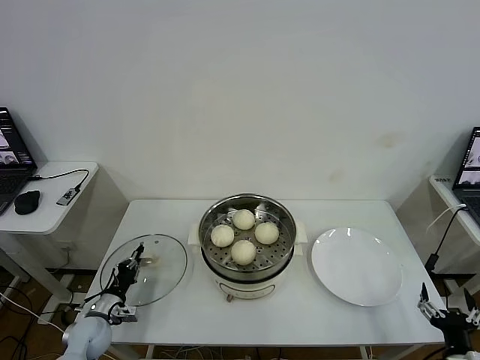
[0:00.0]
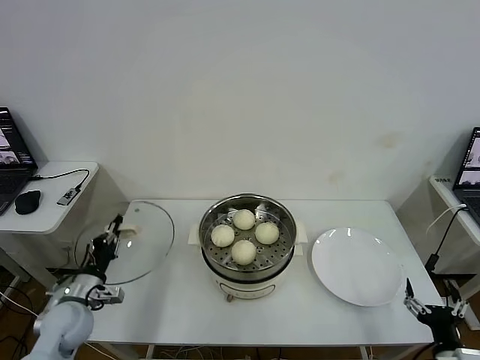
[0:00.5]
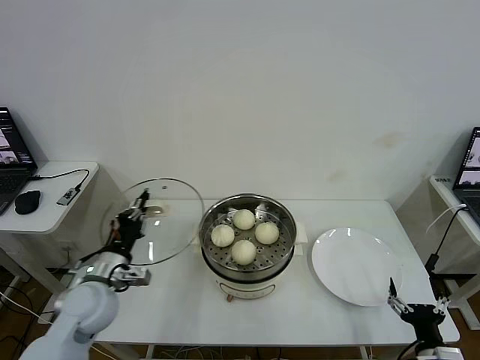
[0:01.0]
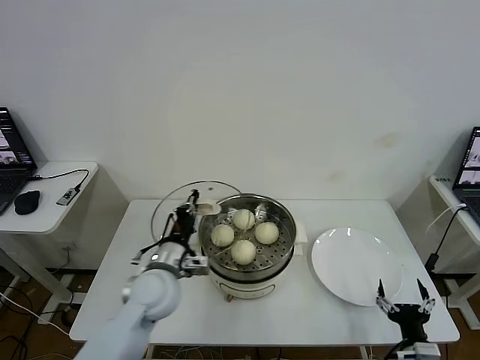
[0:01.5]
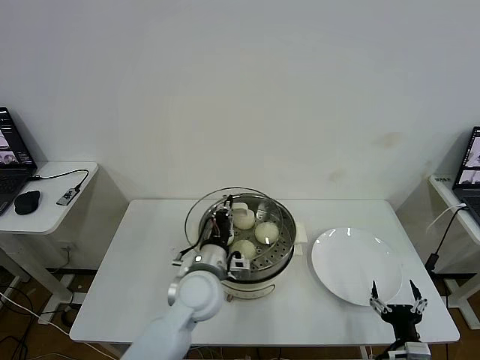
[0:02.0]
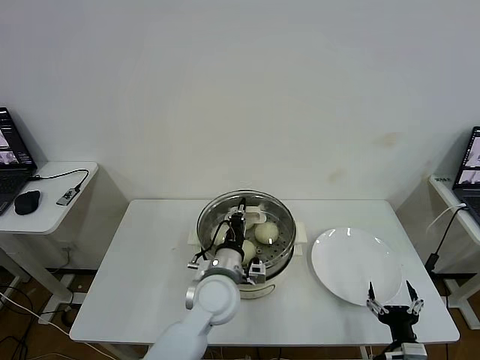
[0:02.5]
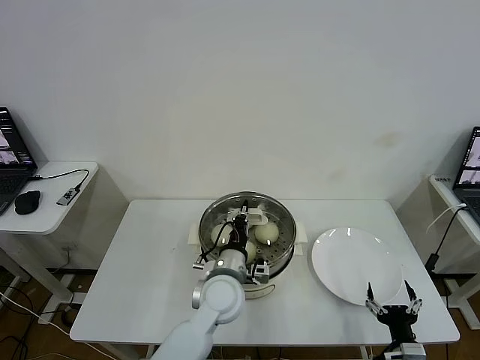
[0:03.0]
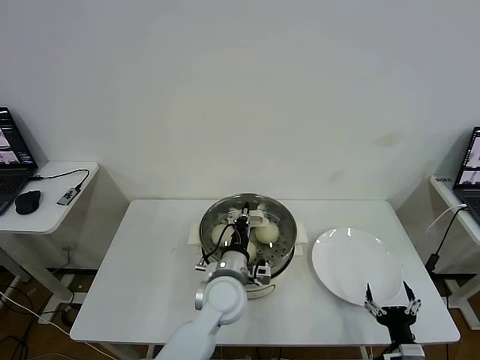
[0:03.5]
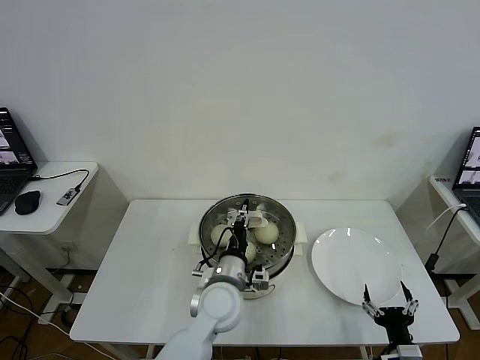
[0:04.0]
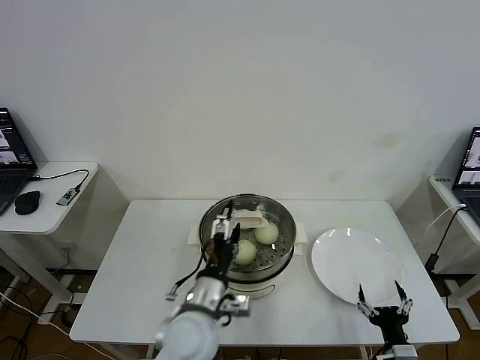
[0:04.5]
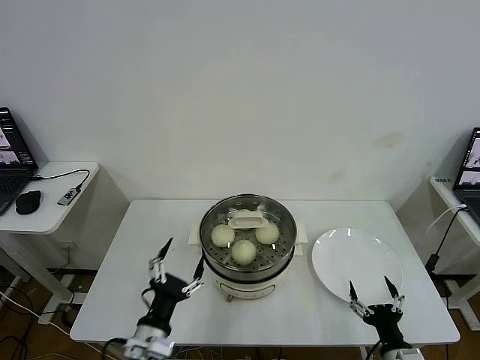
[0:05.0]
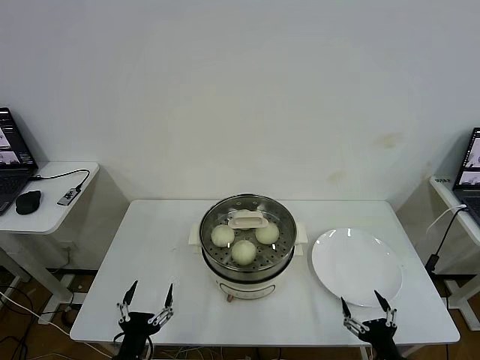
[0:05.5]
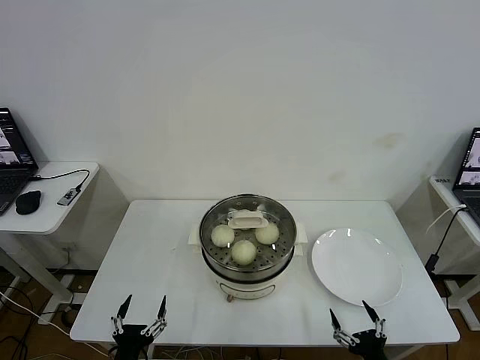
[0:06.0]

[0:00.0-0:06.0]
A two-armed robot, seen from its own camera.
Task of the whole recording: take steamed baozi put them in steamer then cover it.
Step, 0:00.5 to 0:04.0: Place the pot lid on the steamer with left gripper.
0:00.0 to 0:02.0: The left gripper heads to the right and upward, covering about 35 cm; the right gripper travels to the left by some 5 cm.
0:02.0 to 0:04.0: The left gripper moves to the right, about 5 cm, and opens.
0:04.0 to 0:06.0: The right gripper moves backward, roughly 5 cm. The left gripper goes approximately 30 cm to the left, backward and downward, and opens up.

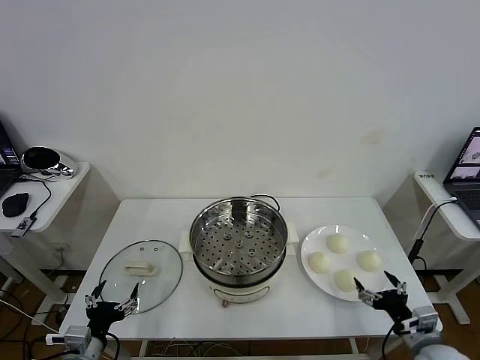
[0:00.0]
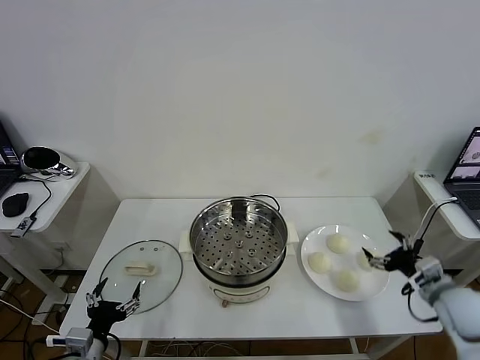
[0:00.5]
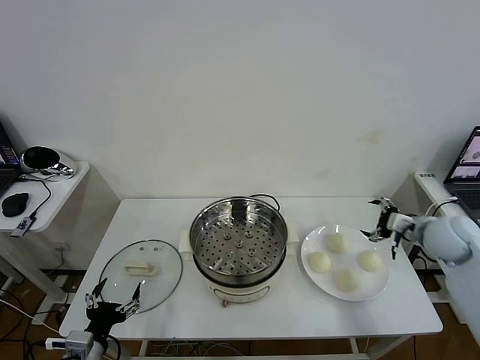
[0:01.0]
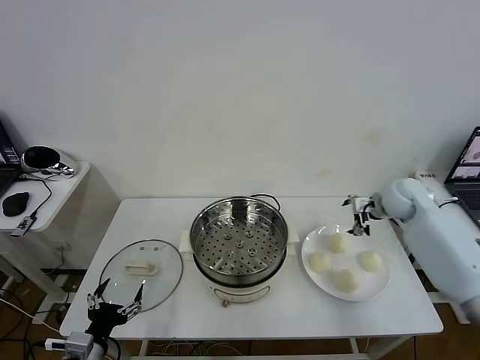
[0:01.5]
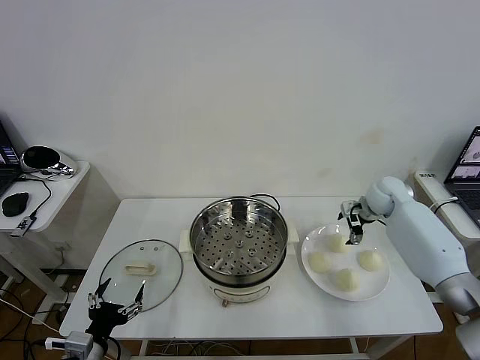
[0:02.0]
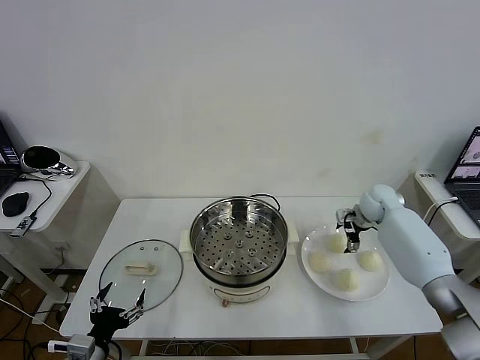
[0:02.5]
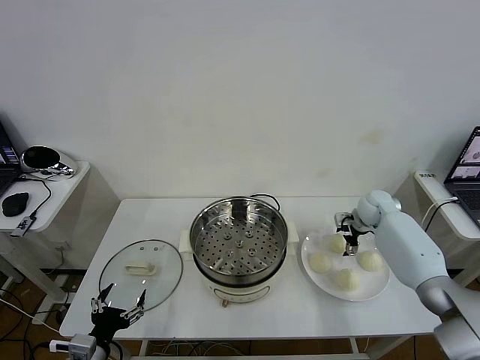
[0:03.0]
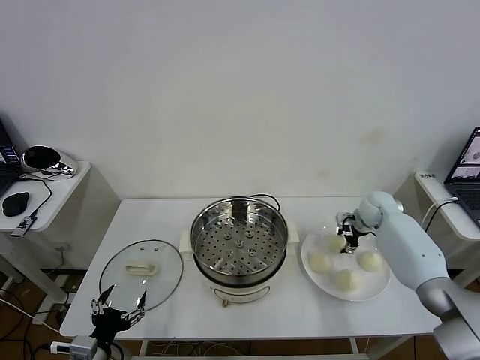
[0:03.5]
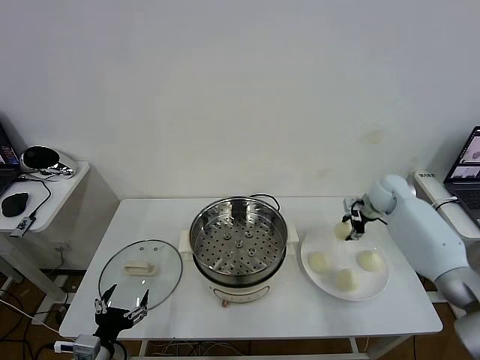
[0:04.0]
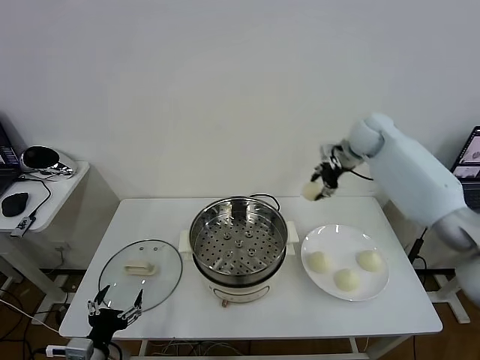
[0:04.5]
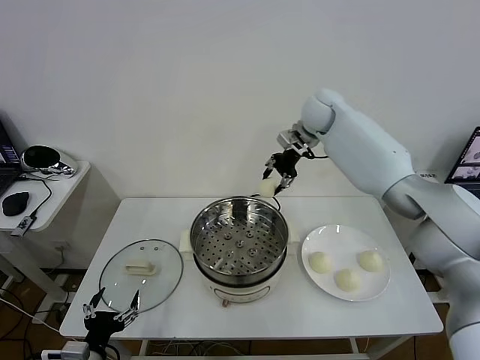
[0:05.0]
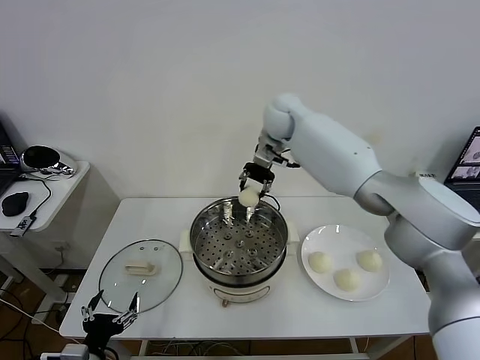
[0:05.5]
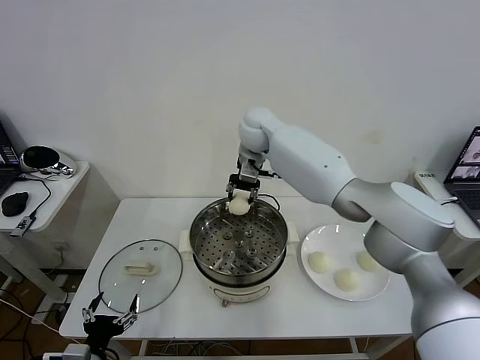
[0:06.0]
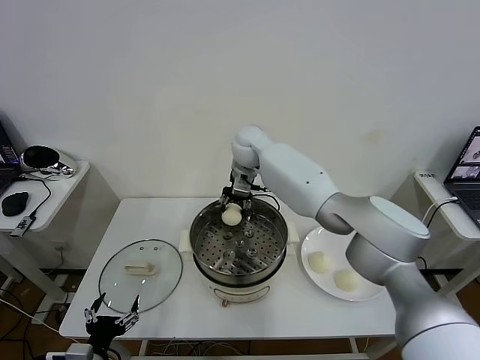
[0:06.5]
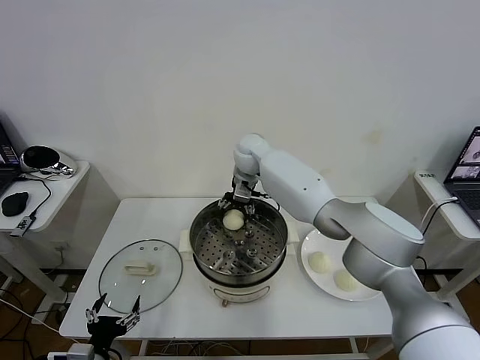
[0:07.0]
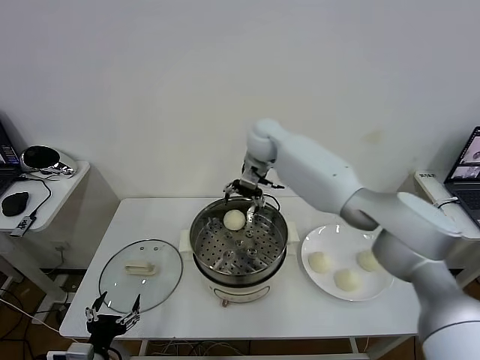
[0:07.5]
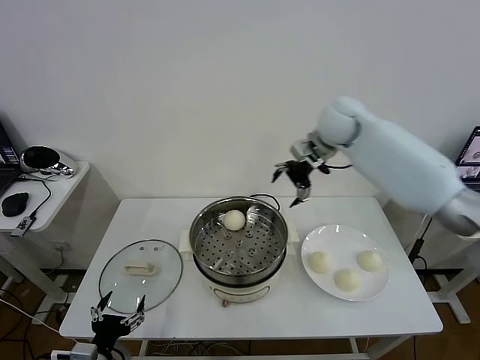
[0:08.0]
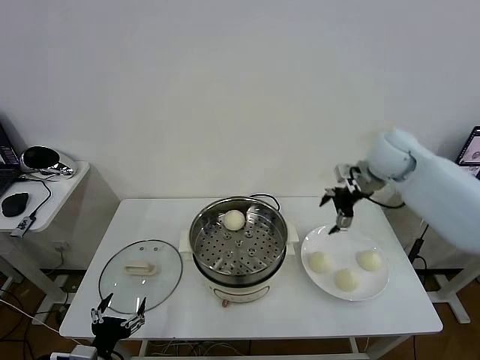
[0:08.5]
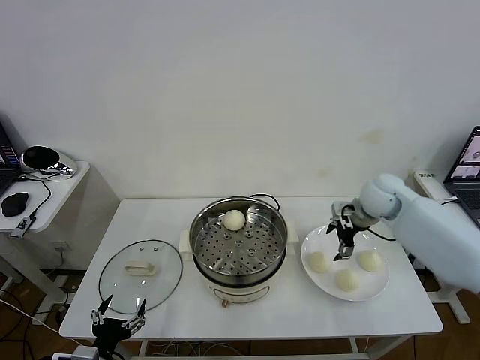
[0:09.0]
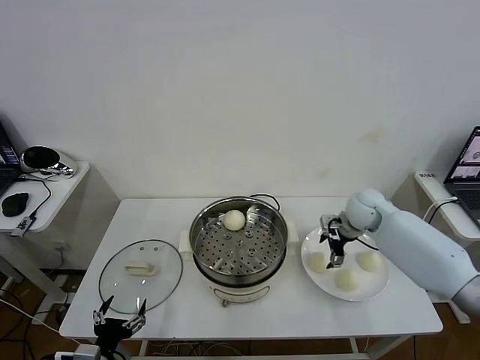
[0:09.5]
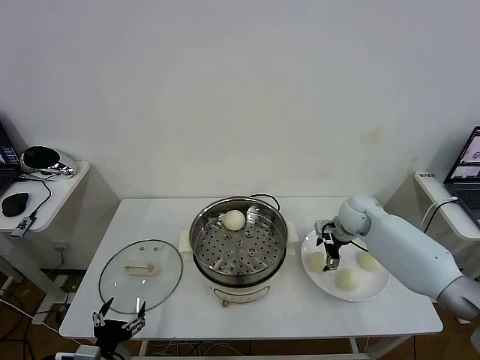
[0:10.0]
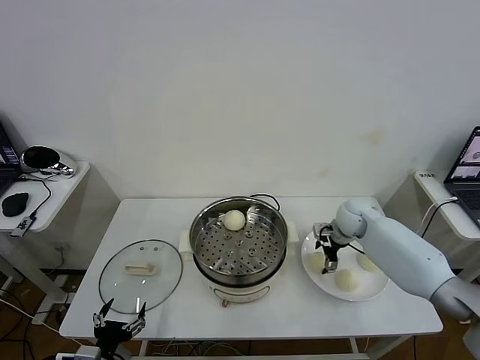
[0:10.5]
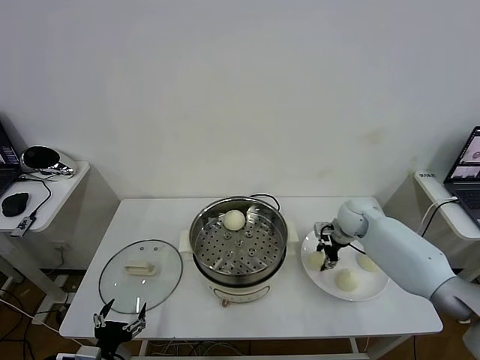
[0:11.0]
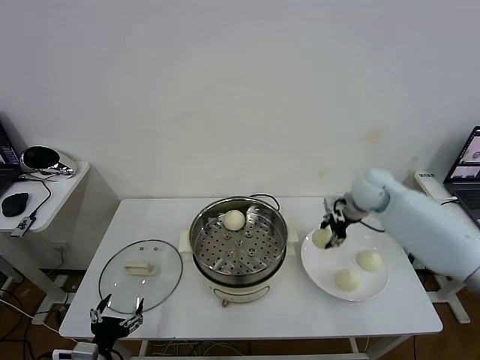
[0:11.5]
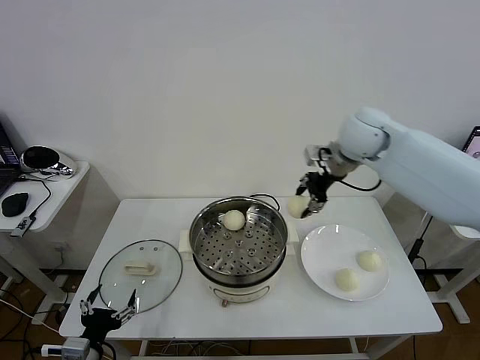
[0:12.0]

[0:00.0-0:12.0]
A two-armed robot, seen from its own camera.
Task of the whole recording: take steamed baozi put them in steamer then cover it.
Step, 0:00.0 to 0:03.0: Grasp the baozi in the plate with right gripper.
Step, 0:03.5 to 0:07.0: Place the baozi on the steamer with right gripper.
Step, 0:07.5 to 0:10.5: Grasp the baozi in the plate with right gripper.
0:02.0 to 0:04.0: The right gripper closes its fingers.
0:04.0 to 0:06.0: The right gripper heads to the left, covering approximately 35 cm.
0:06.0 to 0:08.0: The right gripper is displaced to the right by roughly 20 cm, and opens.
0:08.0 to 0:10.0: The right gripper goes roughly 25 cm downward.
0:10.0 to 0:12.0: The right gripper travels upward by approximately 25 cm, and closes up.

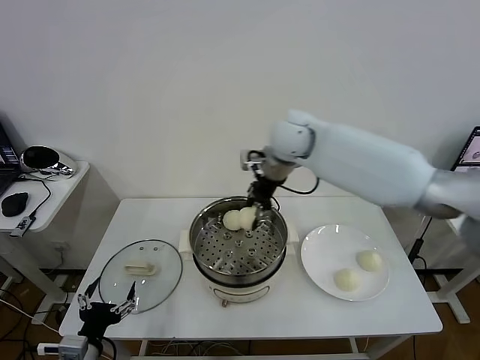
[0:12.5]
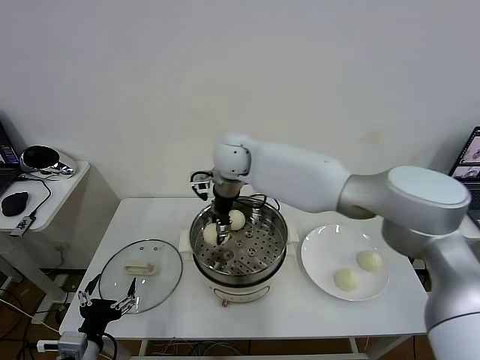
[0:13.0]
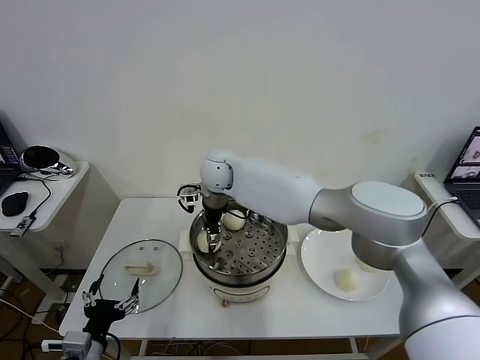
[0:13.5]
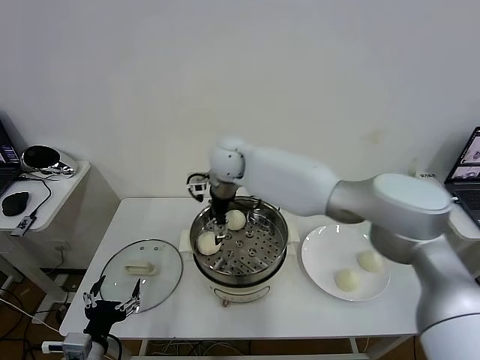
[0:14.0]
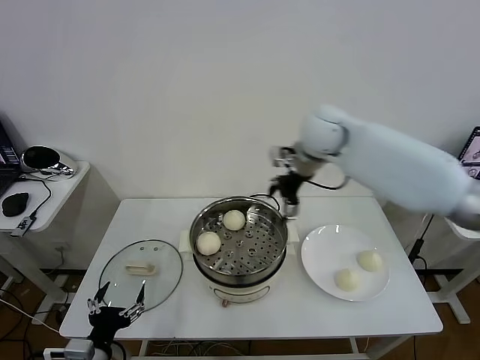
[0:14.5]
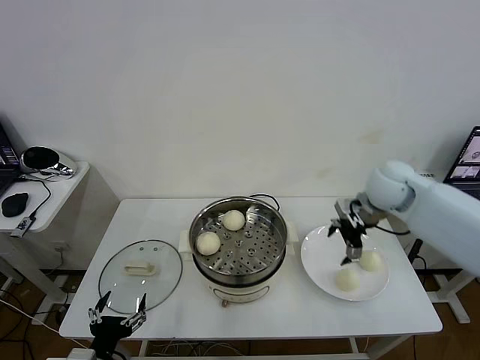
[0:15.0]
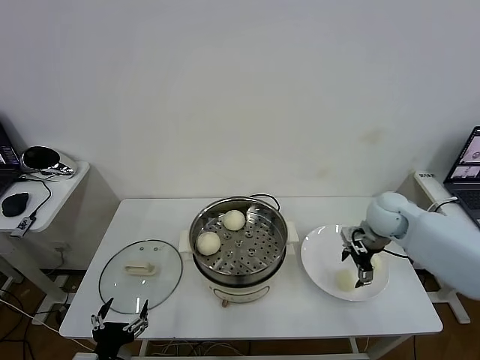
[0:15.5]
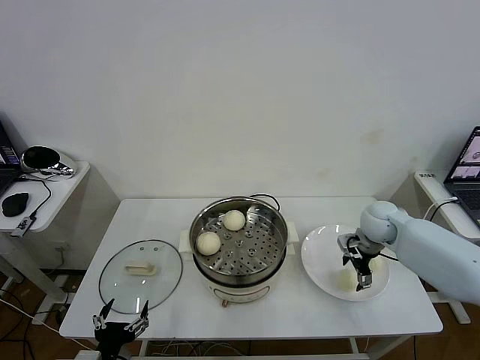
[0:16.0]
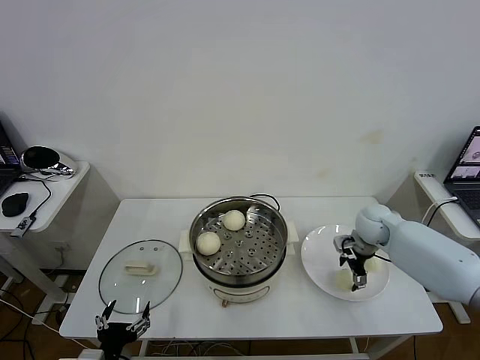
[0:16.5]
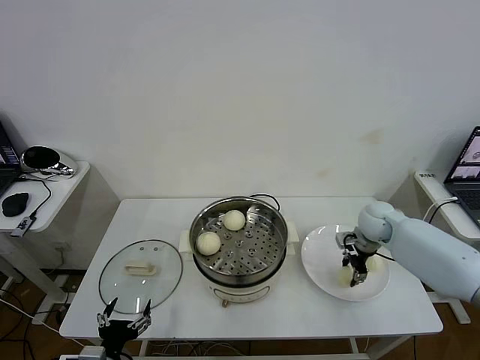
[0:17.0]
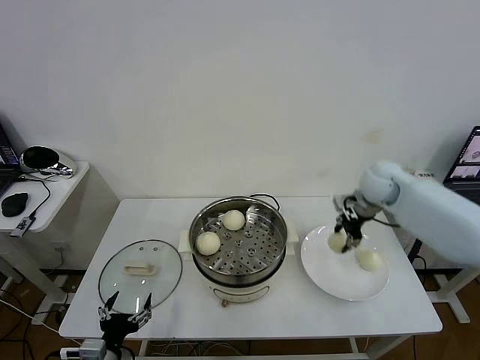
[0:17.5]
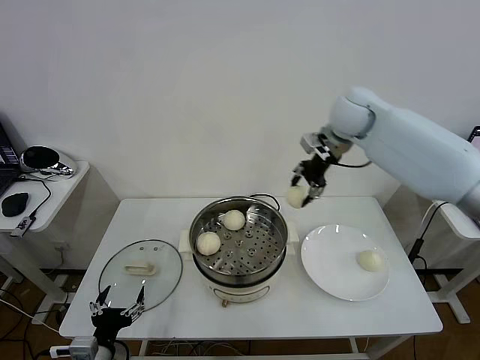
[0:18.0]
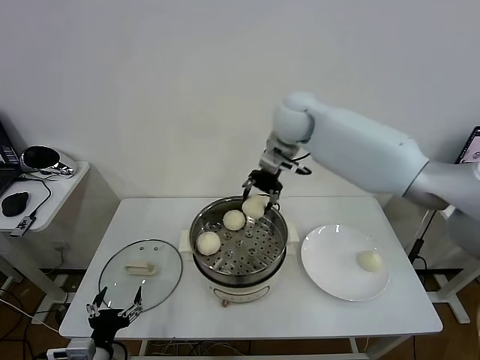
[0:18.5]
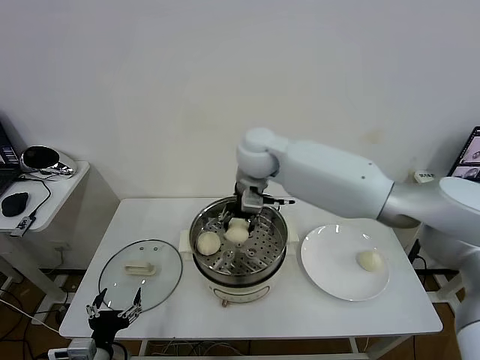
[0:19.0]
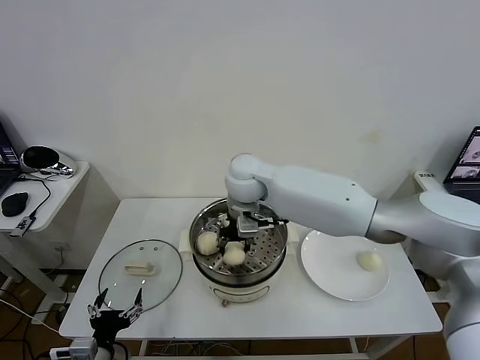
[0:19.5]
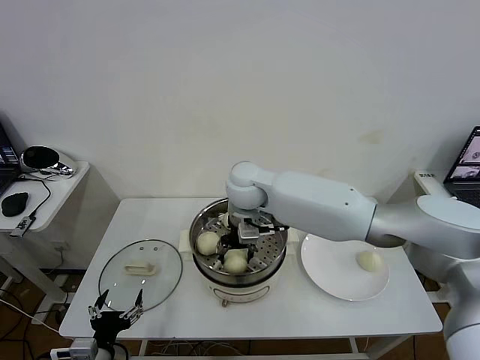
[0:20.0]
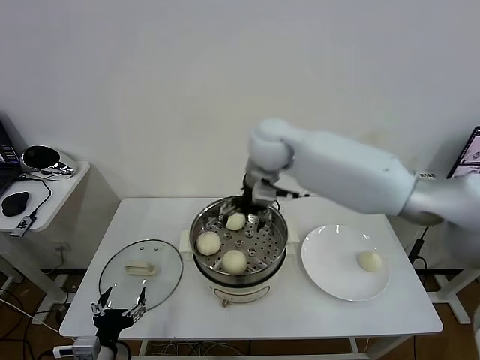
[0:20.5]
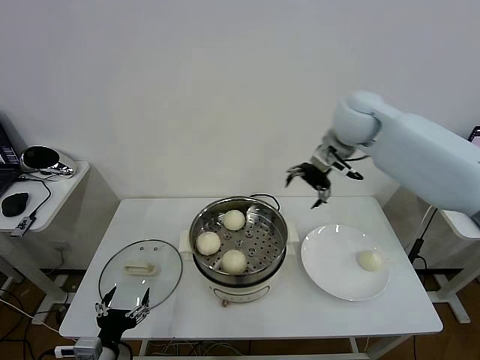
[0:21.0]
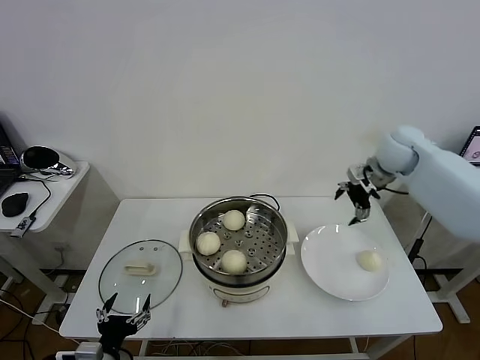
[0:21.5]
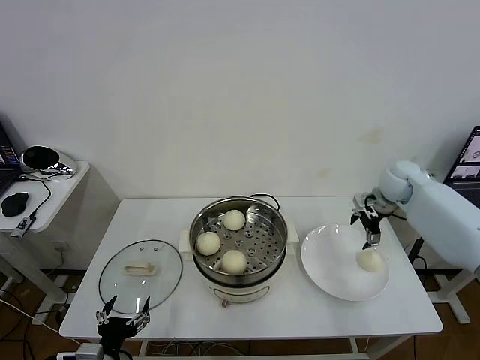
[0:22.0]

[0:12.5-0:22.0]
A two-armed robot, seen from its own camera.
Task of the whole recording: take steamed baozi put them in steamer then cover it.
Step, 0:12.5 to 0:14.0: Place the baozi on the steamer with right gripper.
Step, 0:14.5 to 0:16.5: Grasp the baozi in the plate with right gripper.
Step, 0:17.0 to 0:20.0: Place the baozi on the steamer with right gripper.
0:12.5 to 0:14.5: The right gripper heads to the right, covering approximately 10 cm, and opens its fingers.
0:14.5 to 0:16.5: The right gripper heads downward and to the right, covering approximately 30 cm.
0:16.5 to 0:18.0: The right gripper goes about 30 cm upward and to the left, and closes its fingers.
0:18.0 to 0:20.0: The right gripper shifts some 25 cm to the left, downward and backward.
0:20.0 to 0:22.0: The right gripper moves to the right, roughly 40 cm, and opens.
